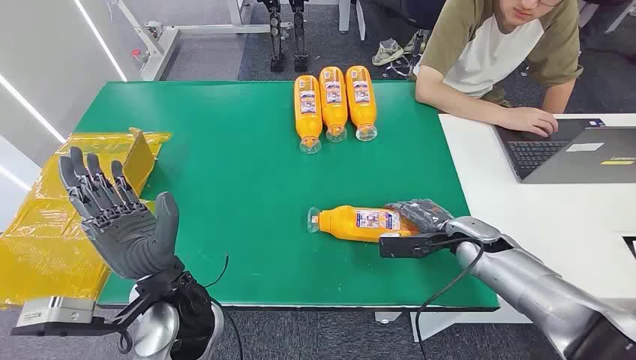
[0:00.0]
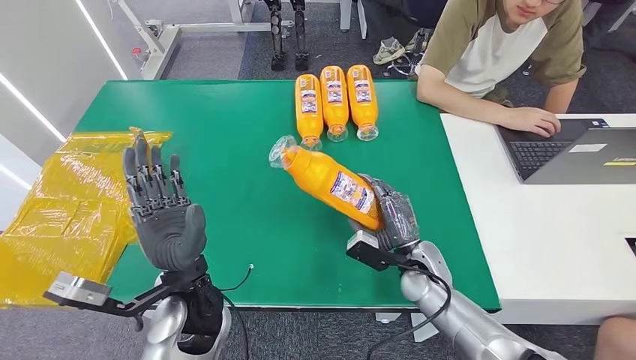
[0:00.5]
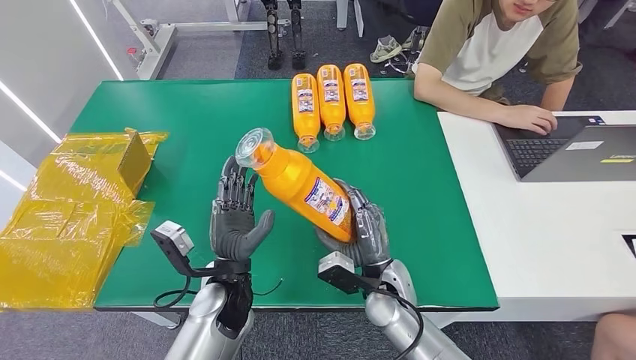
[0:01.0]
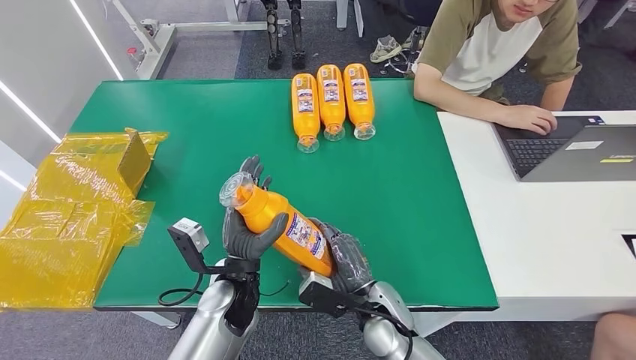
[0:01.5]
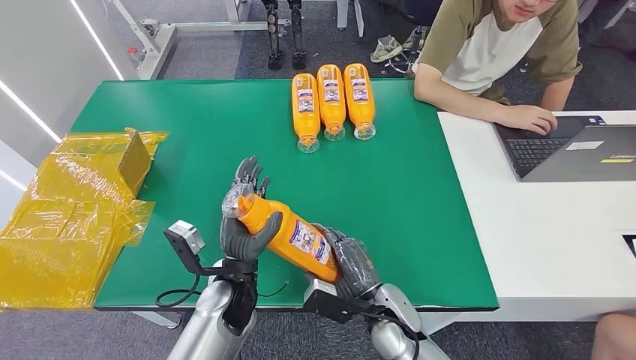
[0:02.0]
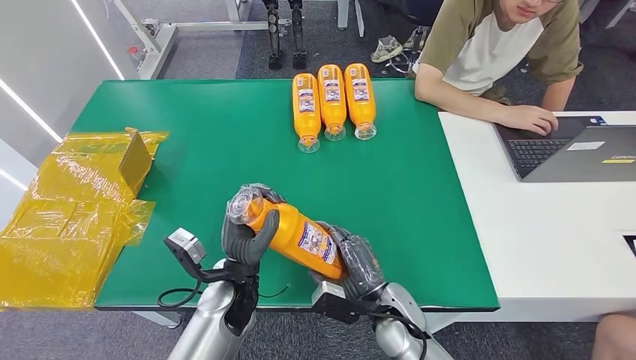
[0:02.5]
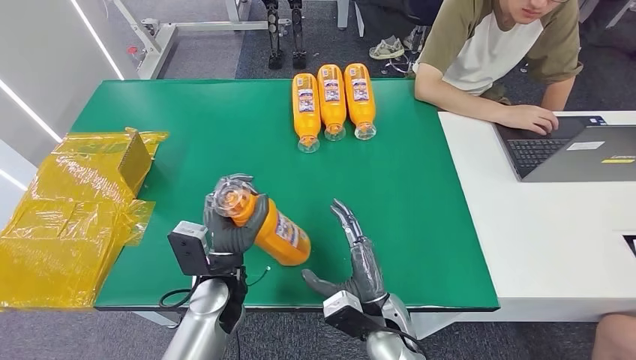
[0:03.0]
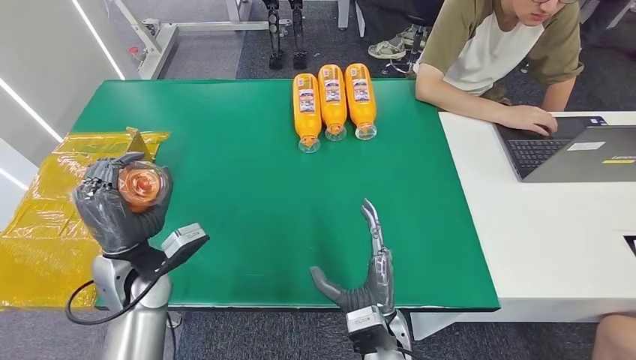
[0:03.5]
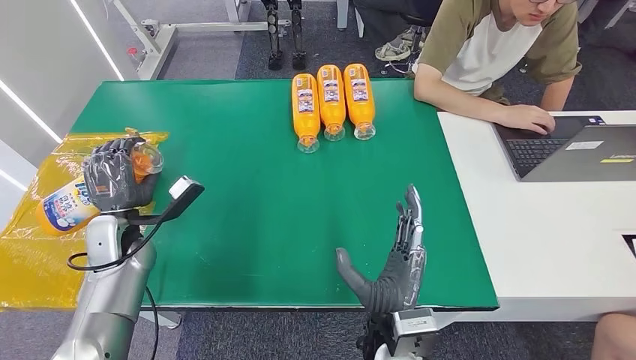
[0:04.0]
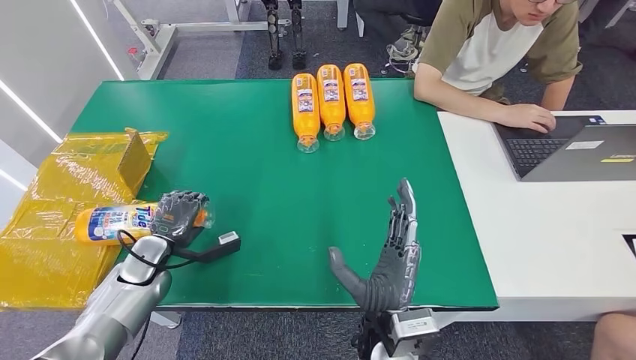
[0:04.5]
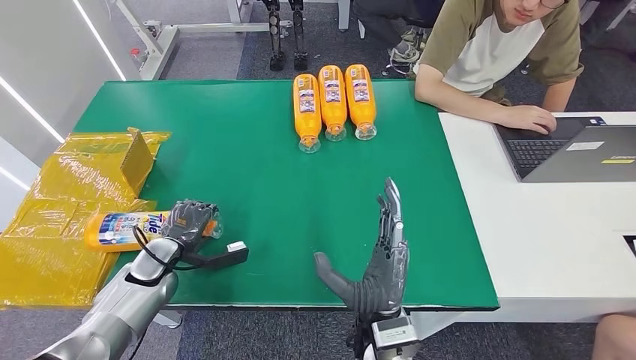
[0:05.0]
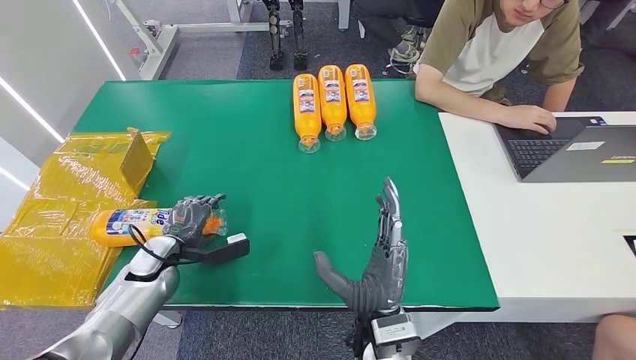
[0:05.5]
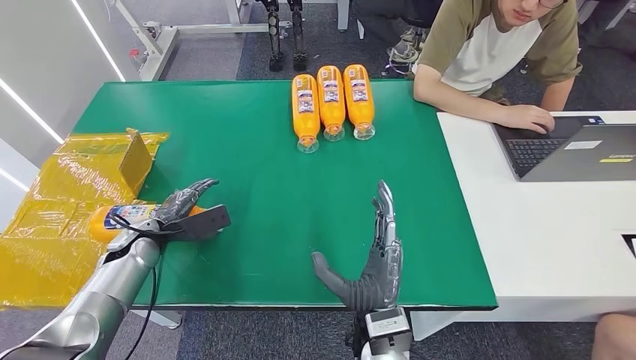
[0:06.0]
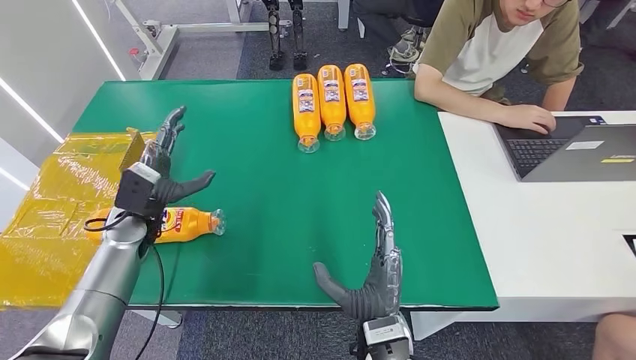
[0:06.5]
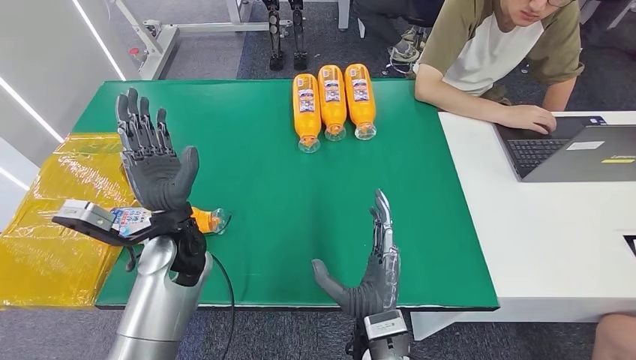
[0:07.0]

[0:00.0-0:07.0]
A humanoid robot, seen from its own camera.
Step, 0:00.0 to 0:02.5: Pick up the bottle from the table.
Step, 0:03.0 to 0:07.0: Turn the bottle to the front side.
0:02.0 to 0:03.5: The right hand ends up about 5 cm from where it was. Meanwhile the left hand goes approximately 15 cm to the left and upward.
0:03.5 to 0:05.0: The left hand heads downward and to the left, covering about 15 cm; the right hand goes roughly 5 cm upward.
0:05.0 to 0:07.0: The left hand shifts approximately 20 cm to the right and upward.

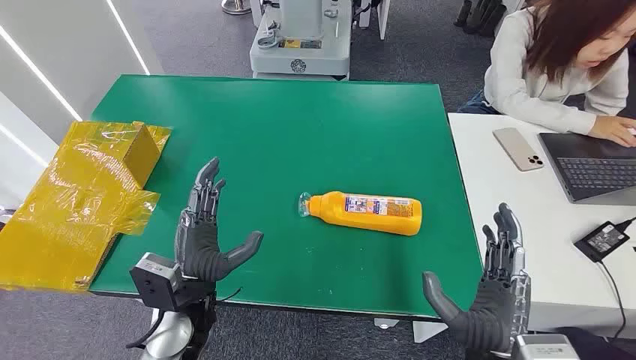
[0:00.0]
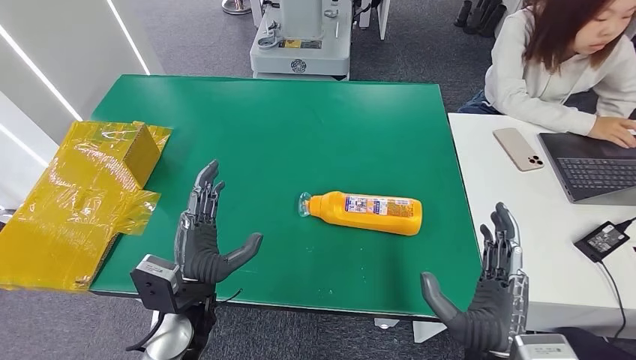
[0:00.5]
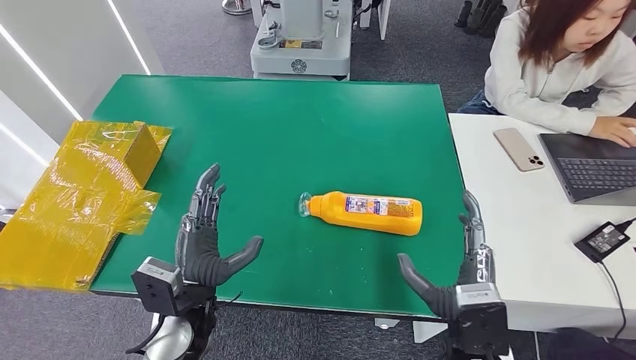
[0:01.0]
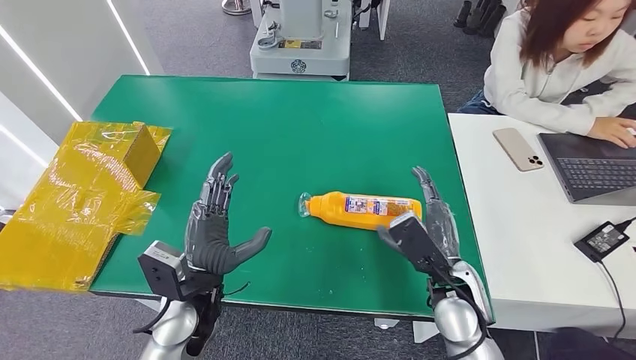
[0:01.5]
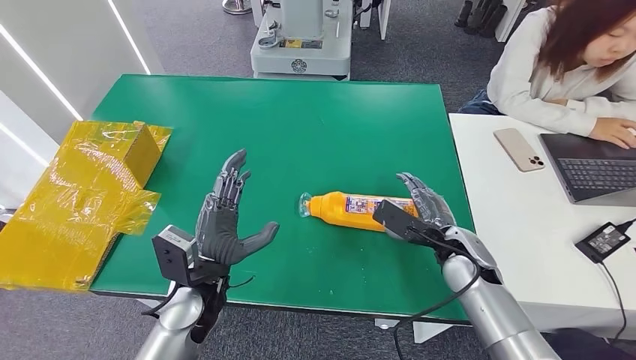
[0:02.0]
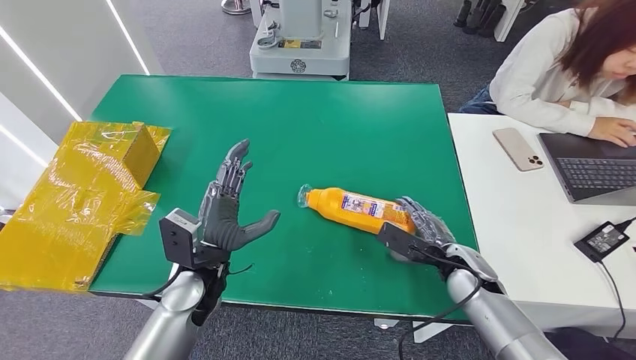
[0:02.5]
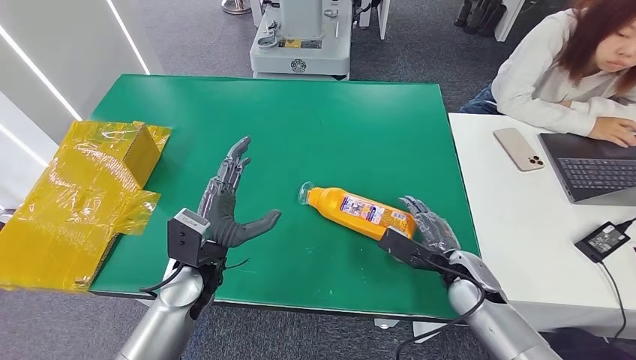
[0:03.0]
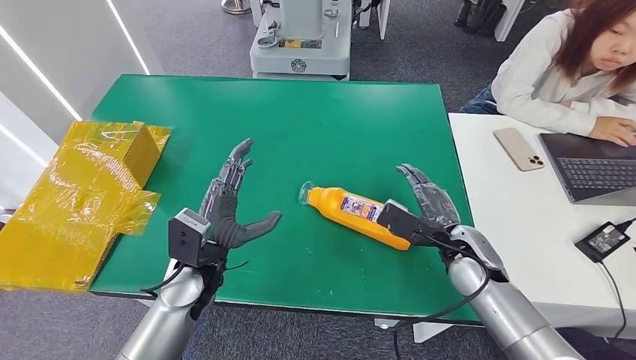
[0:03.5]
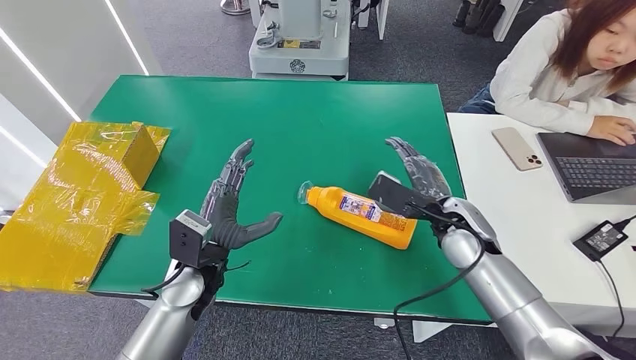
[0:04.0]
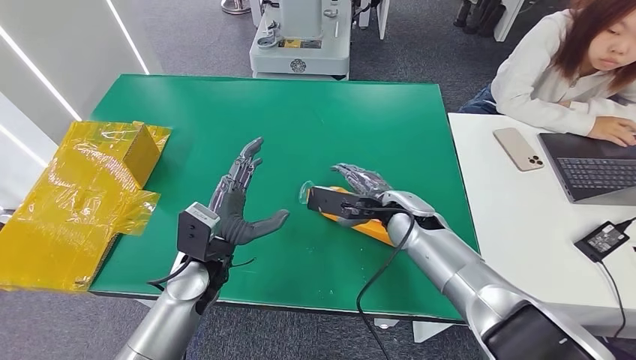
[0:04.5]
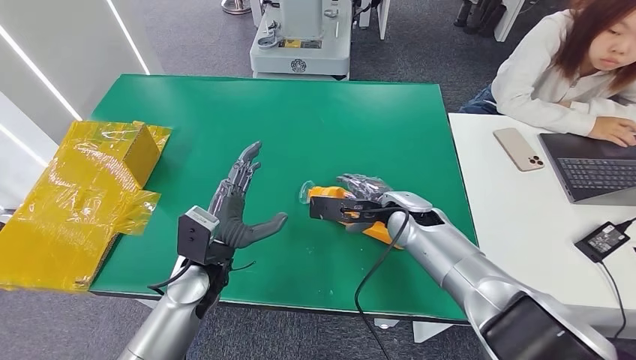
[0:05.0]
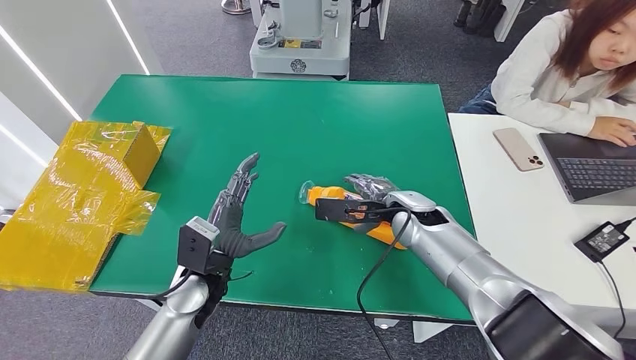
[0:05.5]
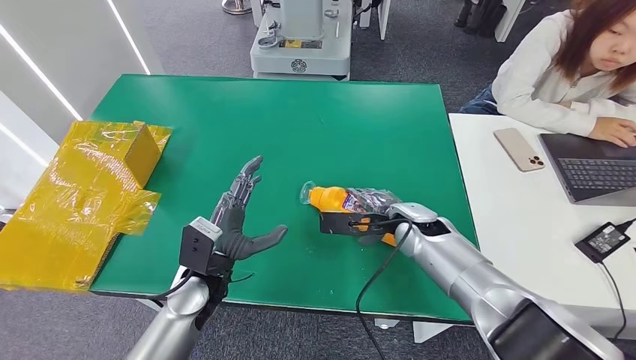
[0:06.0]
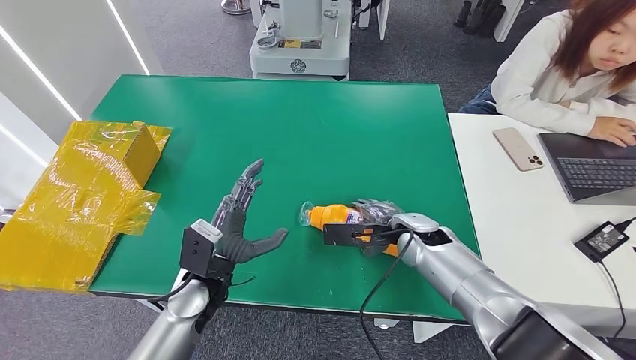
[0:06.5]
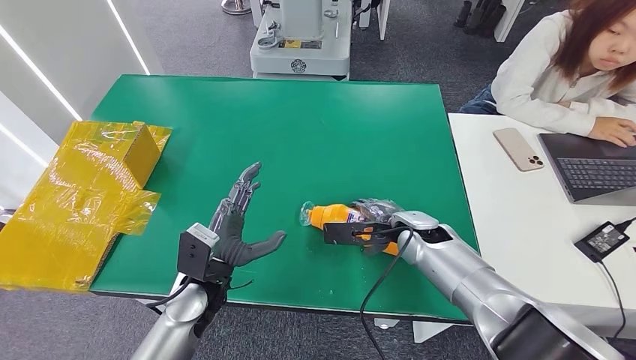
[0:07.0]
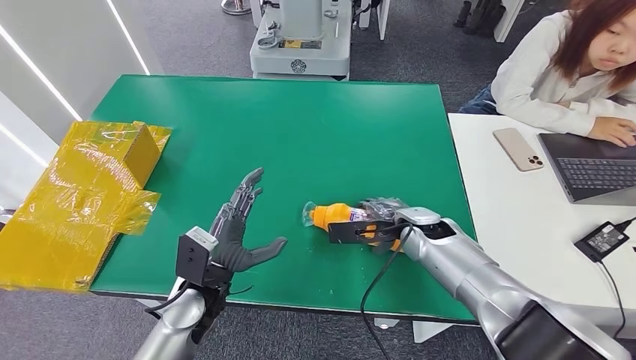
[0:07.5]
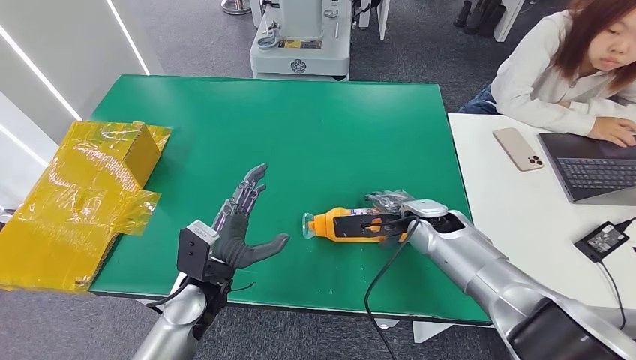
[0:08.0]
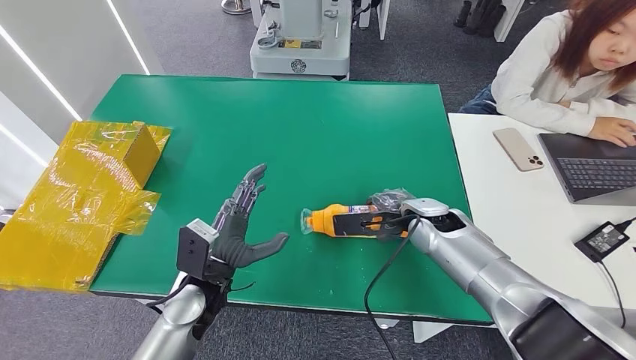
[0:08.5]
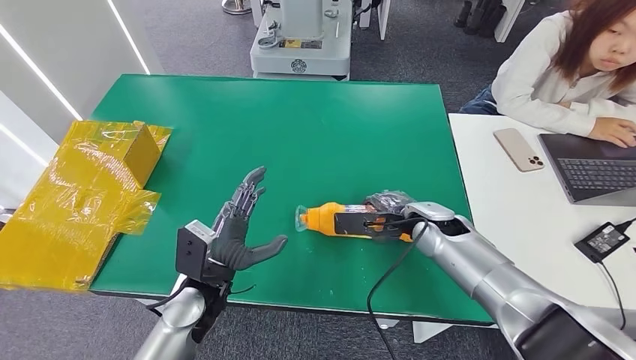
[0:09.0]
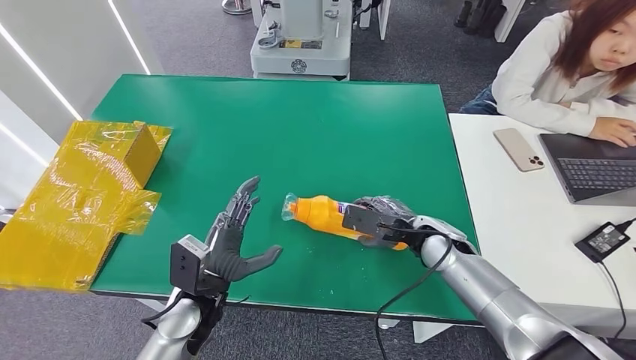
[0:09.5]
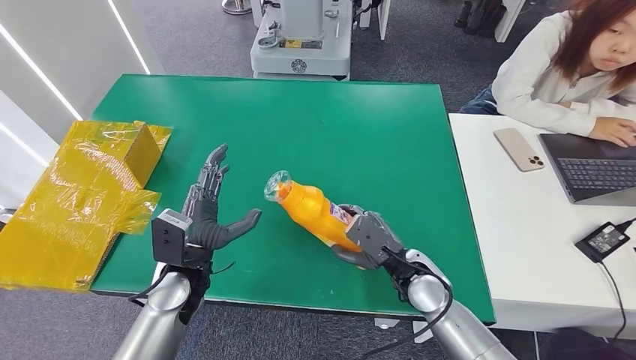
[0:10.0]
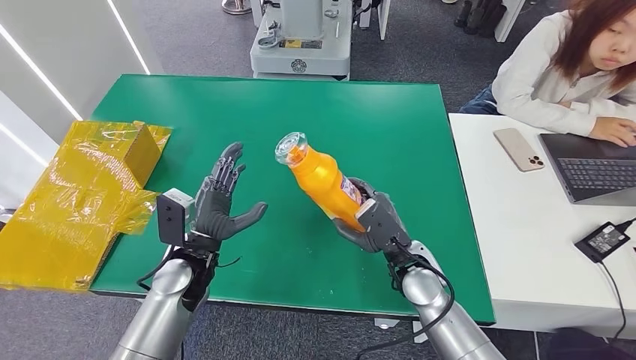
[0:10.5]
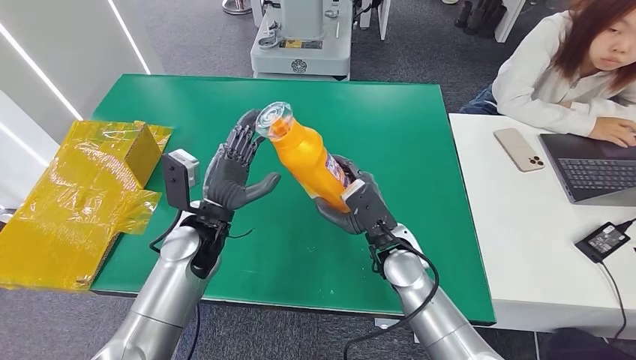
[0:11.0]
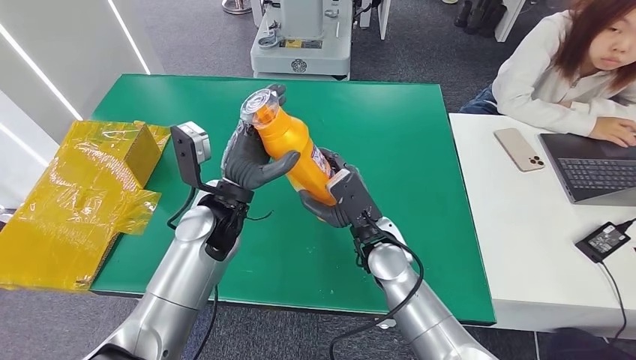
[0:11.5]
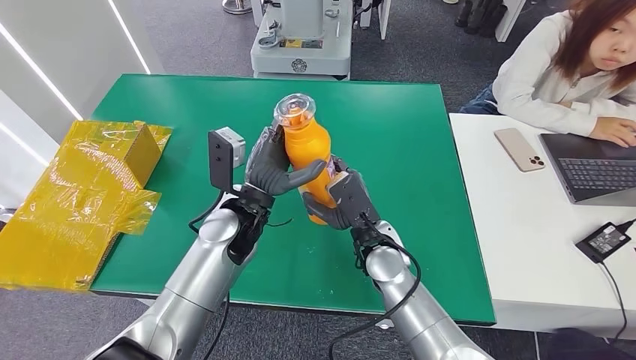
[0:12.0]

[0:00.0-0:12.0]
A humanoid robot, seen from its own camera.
Step, 0:00.0 to 0:10.0: Pick up the bottle from the table.
0:02.0 to 0:04.0: The right hand moves upward, approximately 5 cm.
0:04.0 to 0:06.0: The right hand travels to the left by roughly 5 cm.
0:06.0 to 0:08.0: The hands move only a little.
0:08.0 to 0:10.0: The right hand shifts some 10 cm backward and downward.
0:10.0 to 0:12.0: The right hand goes approximately 10 cm to the left. The left hand moves to the right, upward and forward, about 15 cm.

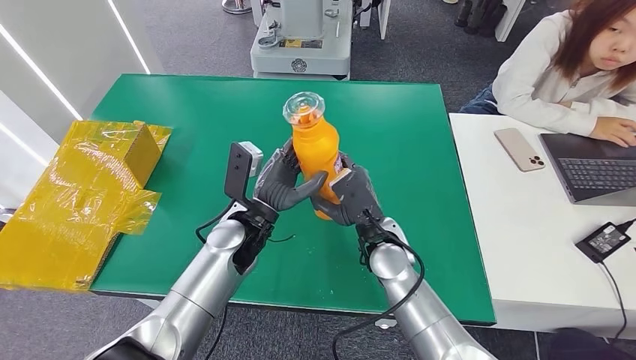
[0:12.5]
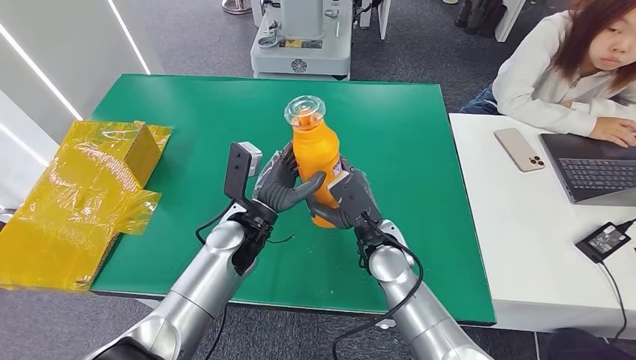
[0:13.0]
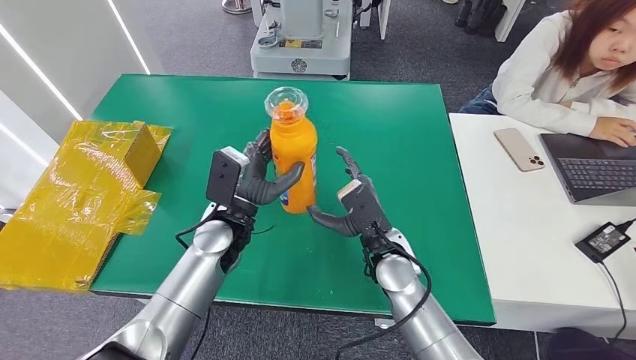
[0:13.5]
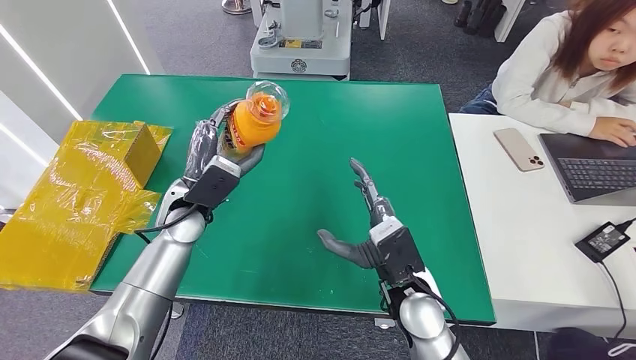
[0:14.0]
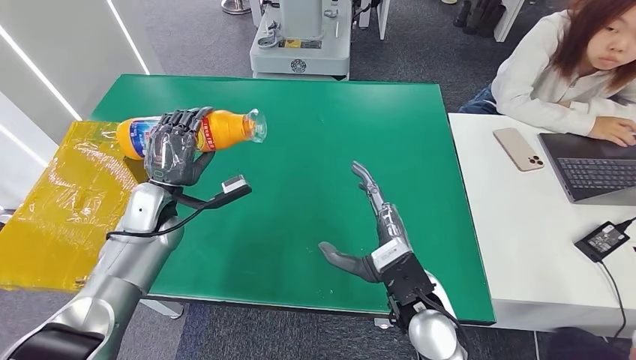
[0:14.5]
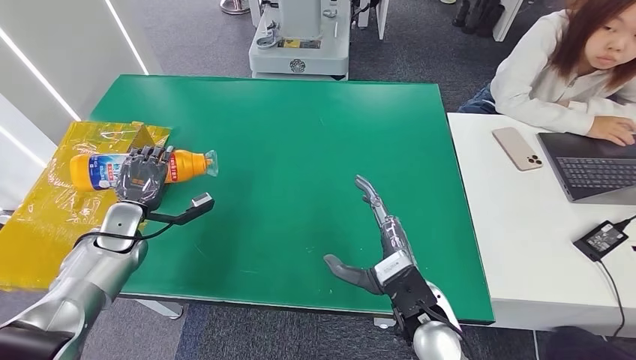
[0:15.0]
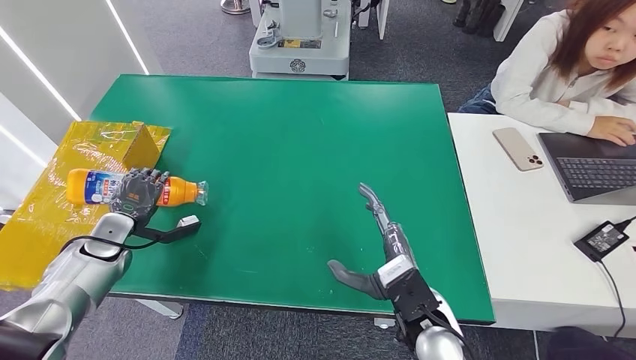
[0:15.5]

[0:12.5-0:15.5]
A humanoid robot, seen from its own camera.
0:12.5 to 0:14.0: The left hand moves to the left, about 10 cm, while the right hand moves backward, approximately 10 cm.
0:14.0 to 0:15.5: The left hand heads to the left and downward, covering approximately 25 cm.
